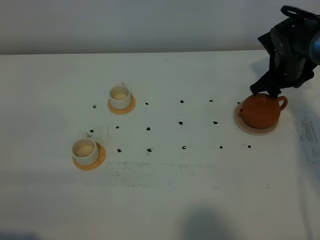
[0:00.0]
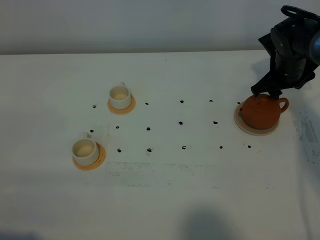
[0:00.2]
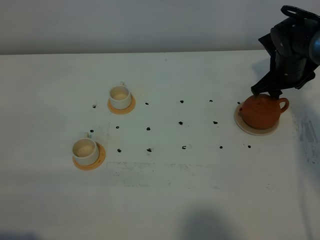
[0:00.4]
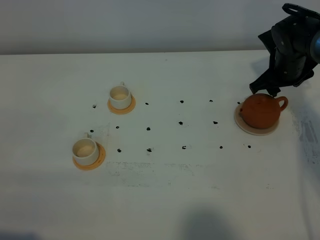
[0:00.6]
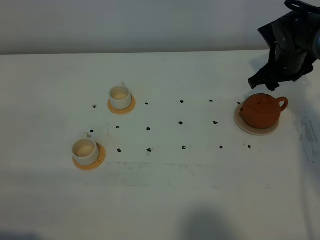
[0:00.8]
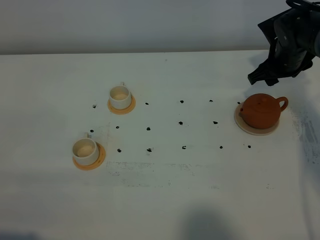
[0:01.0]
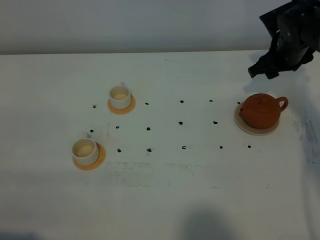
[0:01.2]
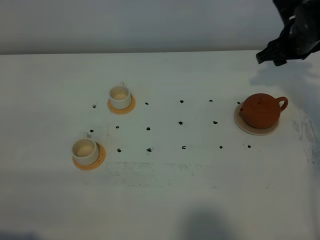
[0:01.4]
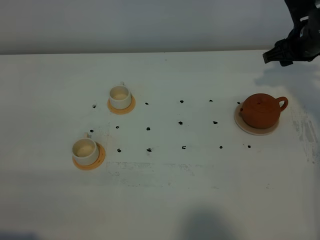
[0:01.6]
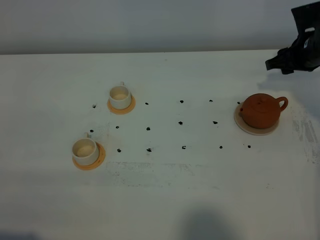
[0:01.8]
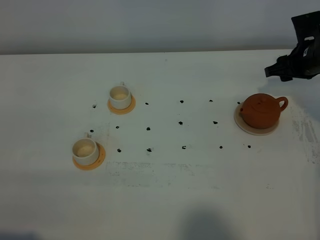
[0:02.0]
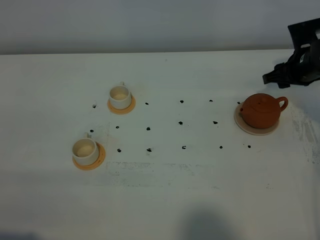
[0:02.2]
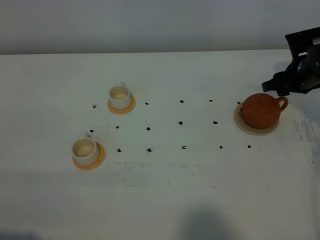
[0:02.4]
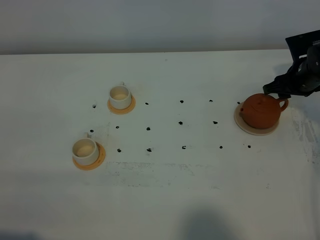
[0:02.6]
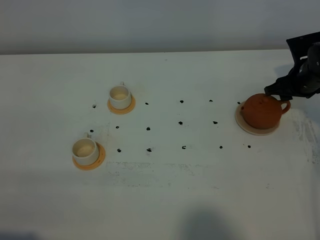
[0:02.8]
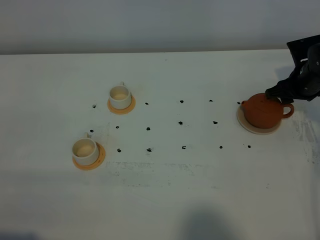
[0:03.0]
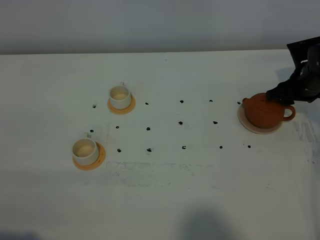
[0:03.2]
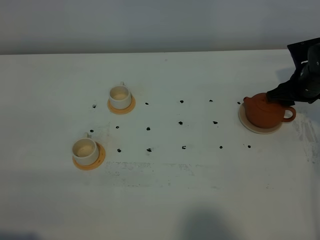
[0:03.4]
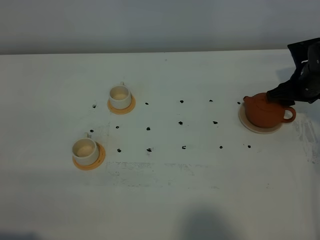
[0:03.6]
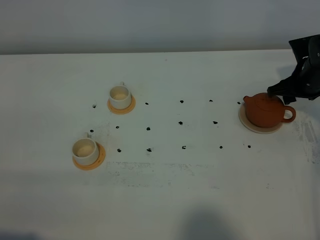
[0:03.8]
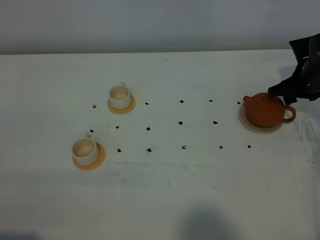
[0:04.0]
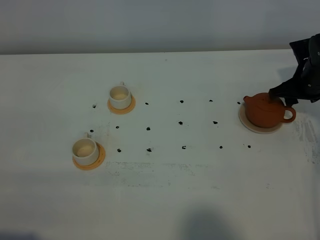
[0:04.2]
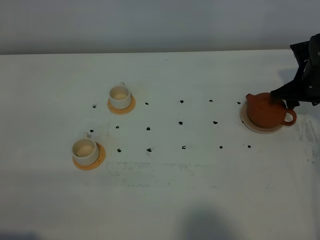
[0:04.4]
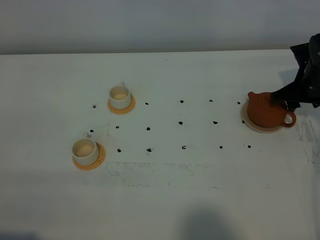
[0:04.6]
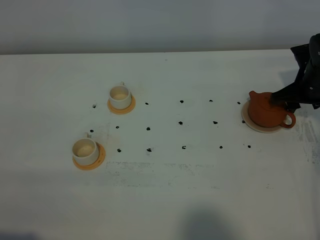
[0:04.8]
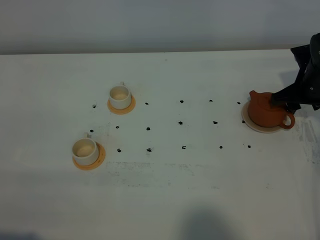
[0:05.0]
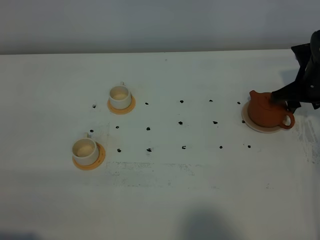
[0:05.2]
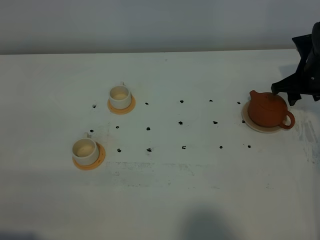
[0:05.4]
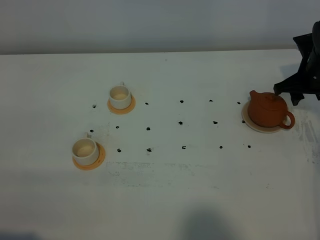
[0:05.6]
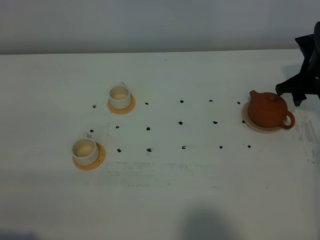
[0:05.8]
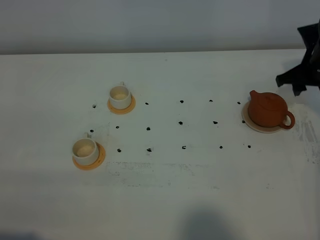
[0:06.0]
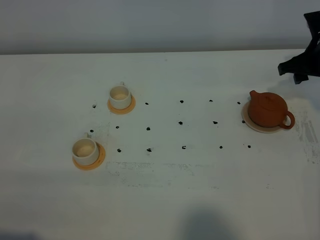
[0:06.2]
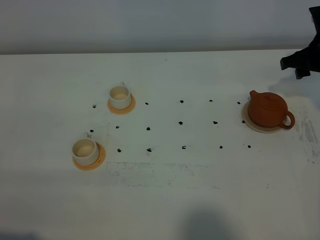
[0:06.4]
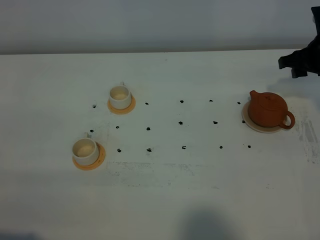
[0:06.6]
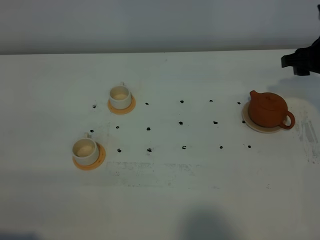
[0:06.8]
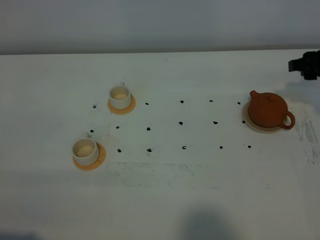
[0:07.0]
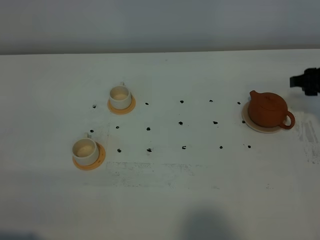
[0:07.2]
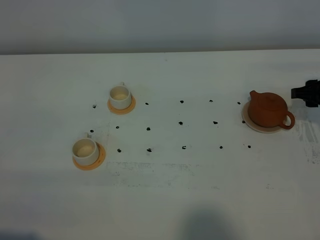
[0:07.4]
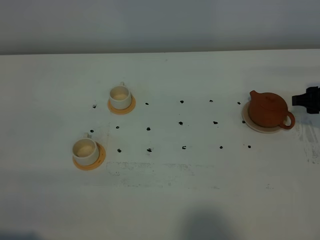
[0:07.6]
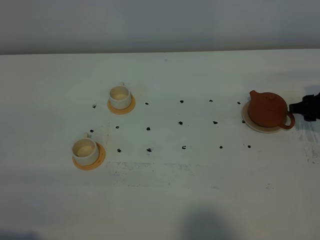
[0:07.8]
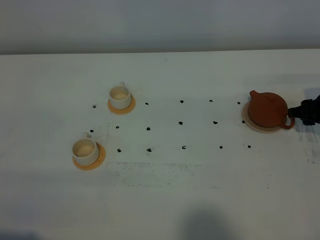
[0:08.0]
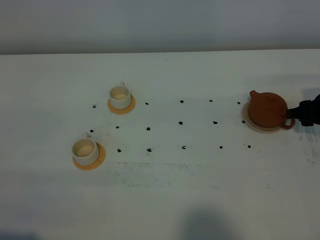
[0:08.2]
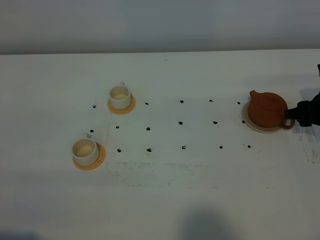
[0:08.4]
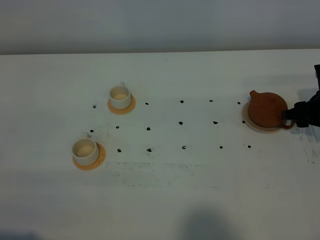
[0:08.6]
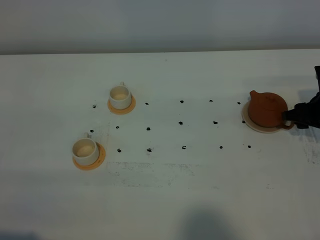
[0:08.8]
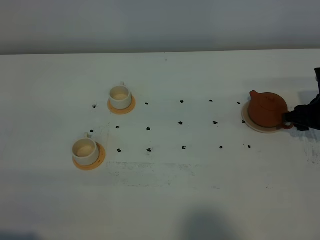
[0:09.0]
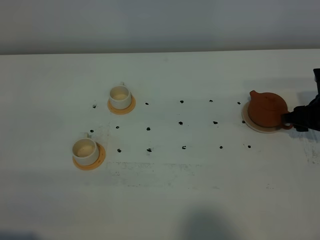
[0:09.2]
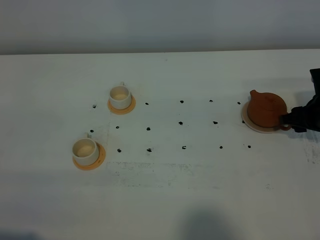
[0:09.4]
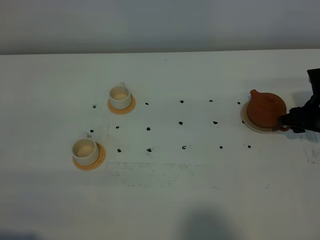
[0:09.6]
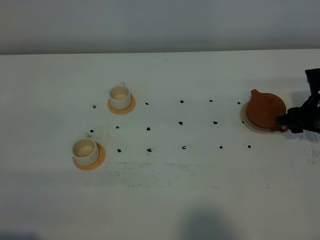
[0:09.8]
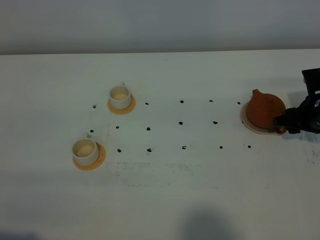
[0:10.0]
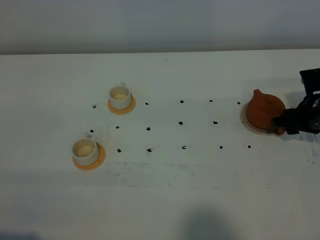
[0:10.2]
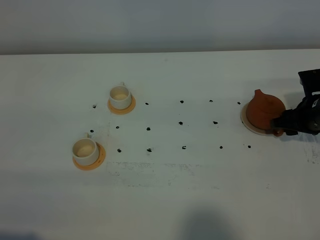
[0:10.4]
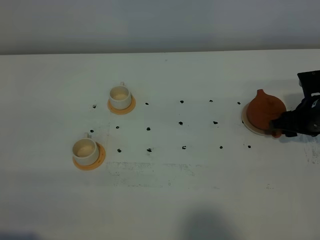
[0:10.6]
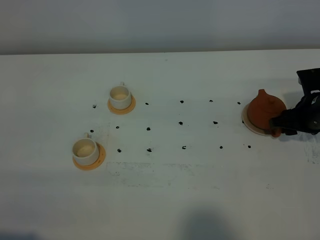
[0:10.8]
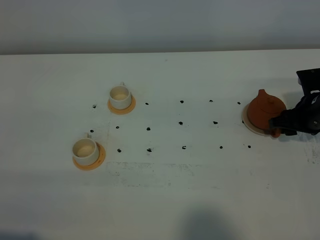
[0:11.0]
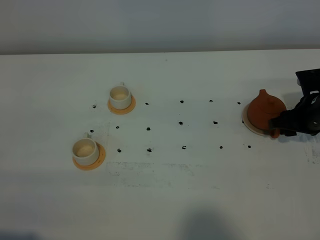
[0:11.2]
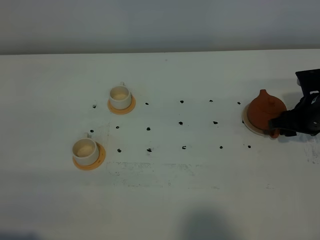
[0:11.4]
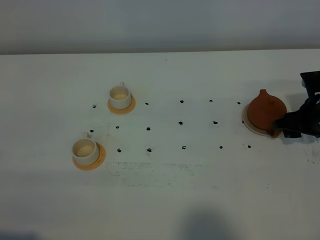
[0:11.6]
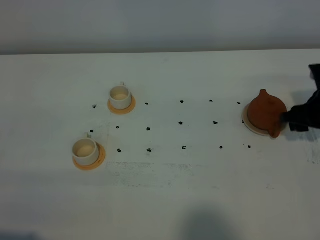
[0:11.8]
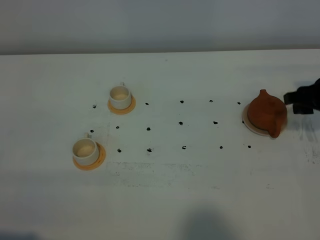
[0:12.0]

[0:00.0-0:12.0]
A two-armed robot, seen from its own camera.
Task of the whole recording: grasp the brown teapot and pour the tea into the two white teacups one by one, put the brown teapot back in its original place.
0:00.0 to 0:01.6: The right gripper shifts roughly 5 cm upward.
0:01.6 to 0:03.0: The right gripper shifts about 5 cm downward.
0:03.0 to 0:06.0: The grippers stay close to where they were, moving slightly.
0:06.0 to 0:07.6: The right gripper moves backward, about 5 cm.
0:07.6 to 0:10.4: There are only small adjustments of the grippers.
0:10.4 to 0:12.0: The right gripper is displaced upward by about 10 cm.

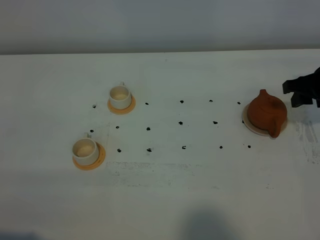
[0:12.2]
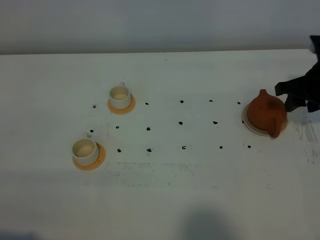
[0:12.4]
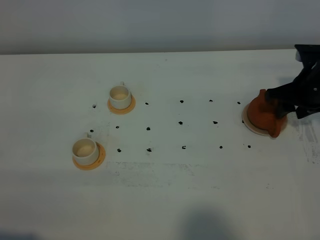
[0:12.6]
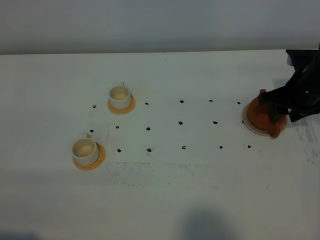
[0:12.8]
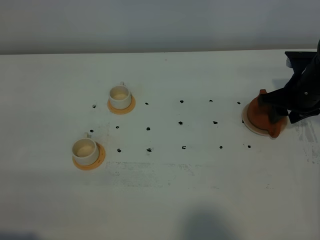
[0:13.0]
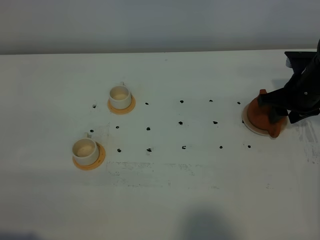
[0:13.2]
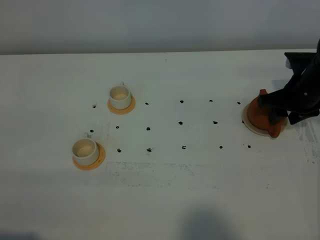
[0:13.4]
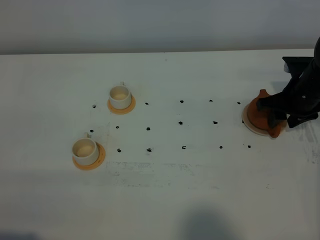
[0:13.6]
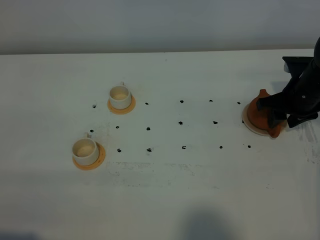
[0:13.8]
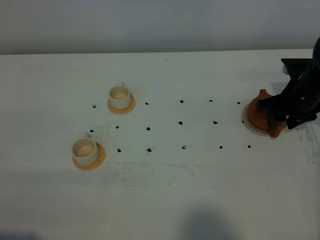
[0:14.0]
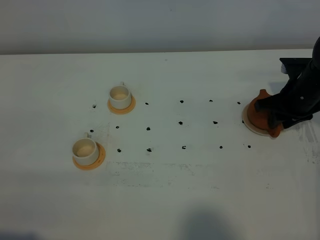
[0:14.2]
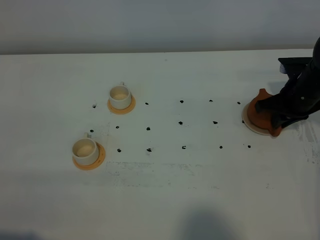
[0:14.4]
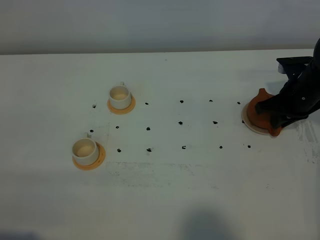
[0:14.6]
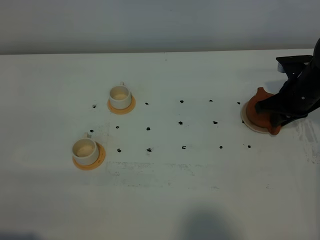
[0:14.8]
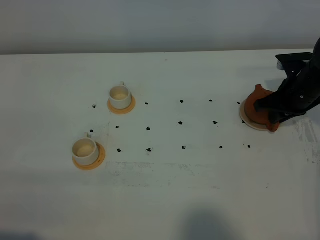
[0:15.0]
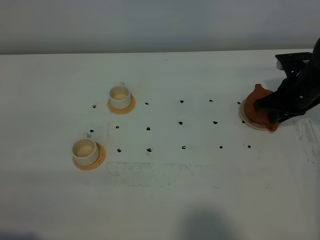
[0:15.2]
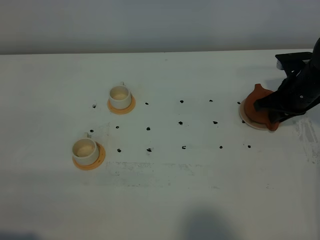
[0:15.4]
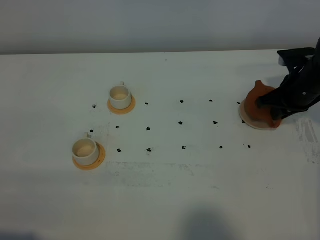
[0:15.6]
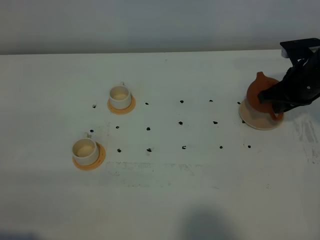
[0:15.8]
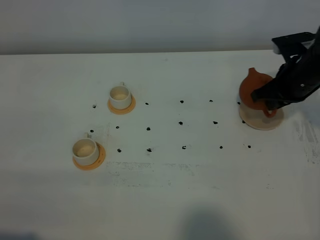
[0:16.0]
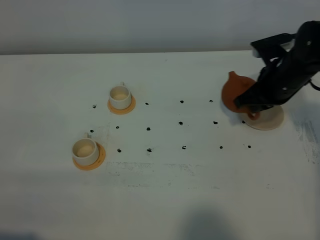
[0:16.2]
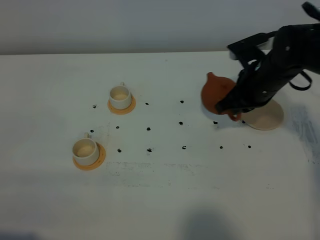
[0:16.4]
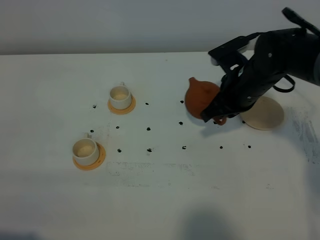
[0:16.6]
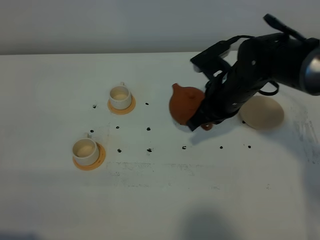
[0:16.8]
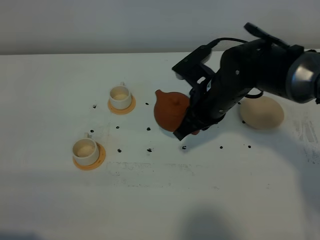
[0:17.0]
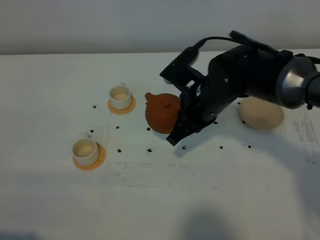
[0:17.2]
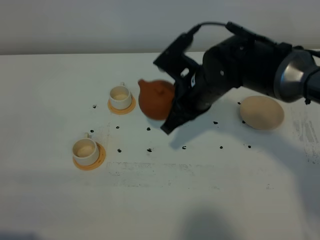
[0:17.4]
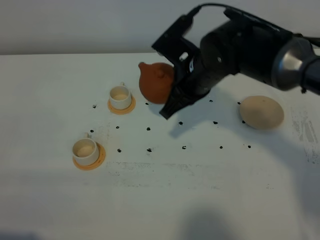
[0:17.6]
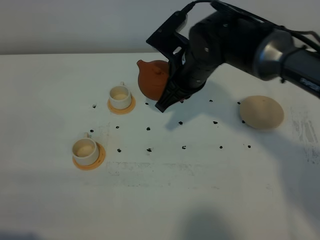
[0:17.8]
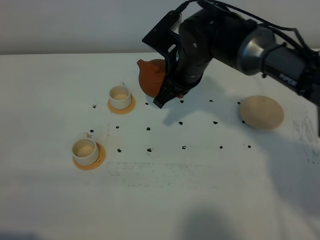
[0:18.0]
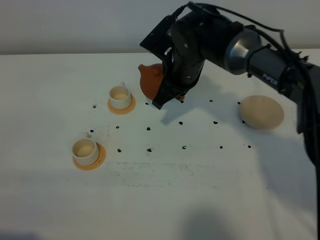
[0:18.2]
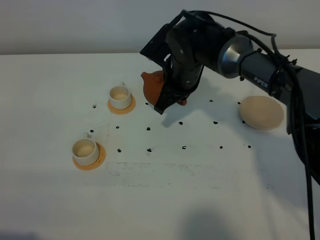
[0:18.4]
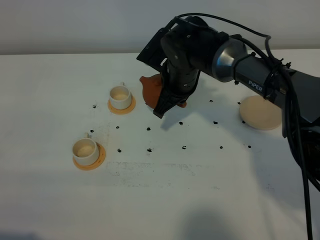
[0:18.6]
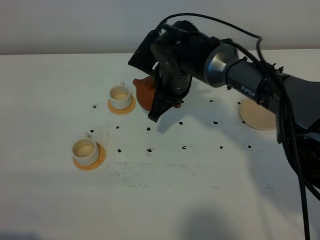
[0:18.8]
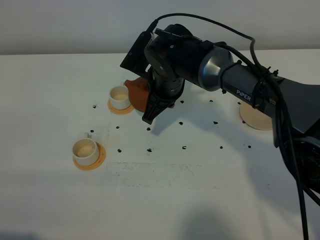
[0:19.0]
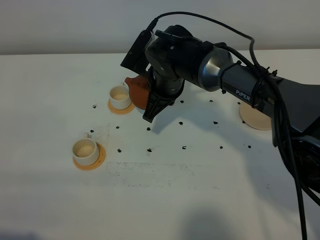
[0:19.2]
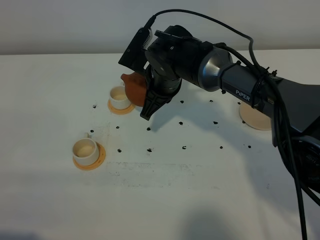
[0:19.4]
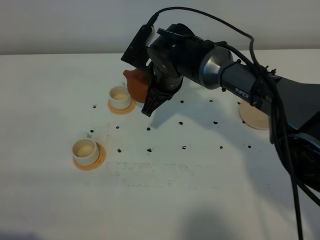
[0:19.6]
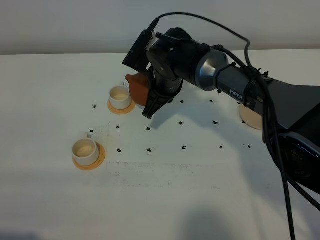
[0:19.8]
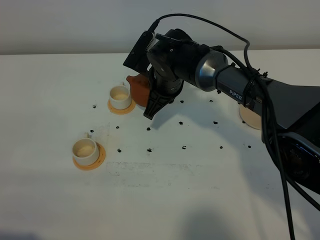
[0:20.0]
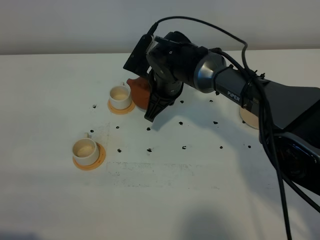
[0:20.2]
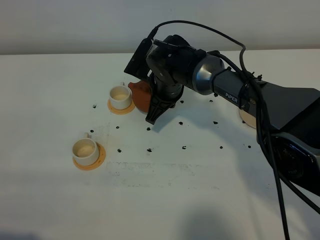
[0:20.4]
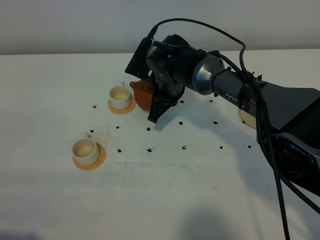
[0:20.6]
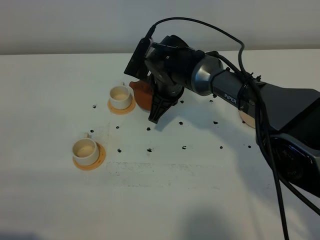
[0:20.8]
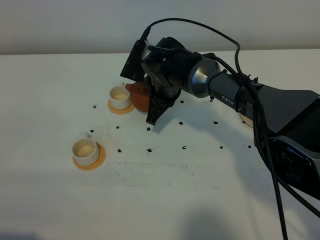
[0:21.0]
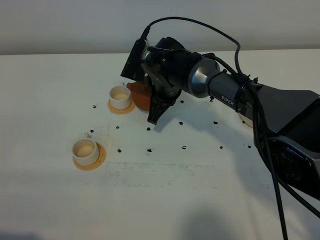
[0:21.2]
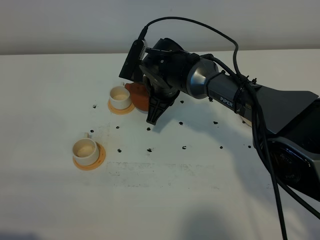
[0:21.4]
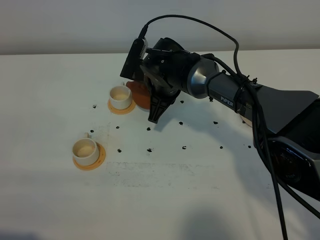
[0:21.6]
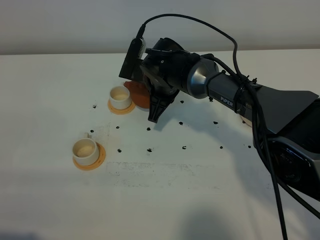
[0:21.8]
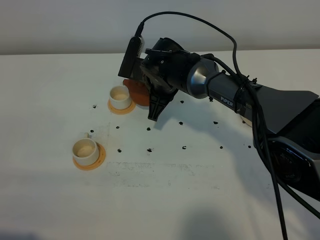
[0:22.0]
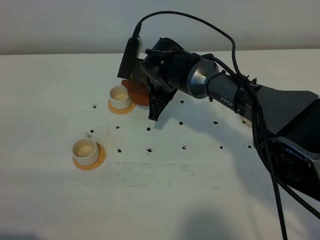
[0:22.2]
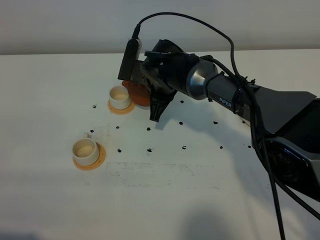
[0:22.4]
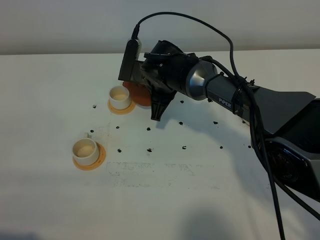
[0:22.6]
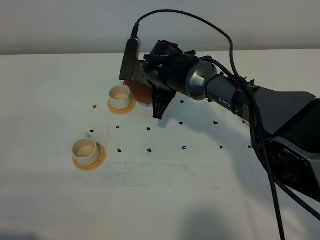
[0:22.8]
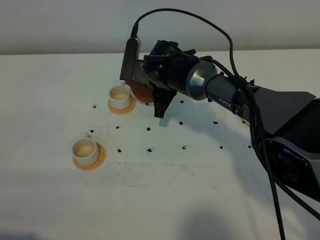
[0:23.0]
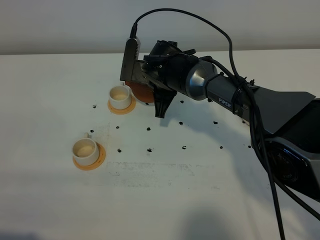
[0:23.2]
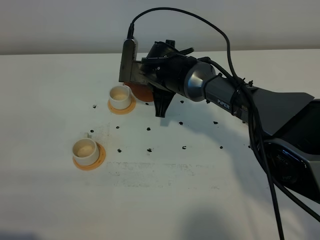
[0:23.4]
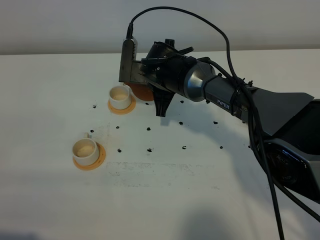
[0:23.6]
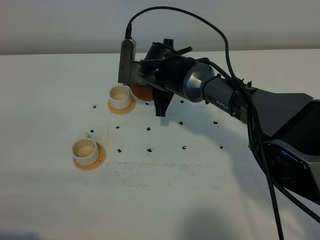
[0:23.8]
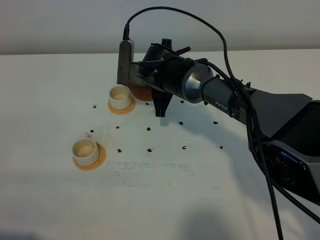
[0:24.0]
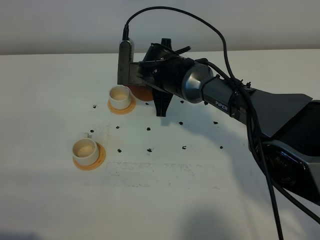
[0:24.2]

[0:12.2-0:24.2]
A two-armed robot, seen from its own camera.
Task of the whole recording: grasp the brown teapot and pour the tea into the two white teacups one by one, put the brown teapot back in its original place.
Step, 0:12.2 to 0:15.6: Pick up the teapot with the right gripper.
0:12.2 to 0:13.8: The right gripper travels downward by about 5 cm.
0:13.8 to 0:15.2: The right gripper closes up.
0:15.2 to 0:16.6: The right gripper travels to the left and backward by some 15 cm.
0:16.6 to 0:18.2: The right gripper heads to the left, covering approximately 10 cm.
0:19.8 to 0:22.6: The grippers move only a little.
0:22.6 to 0:24.2: The grippers make only small movements.
